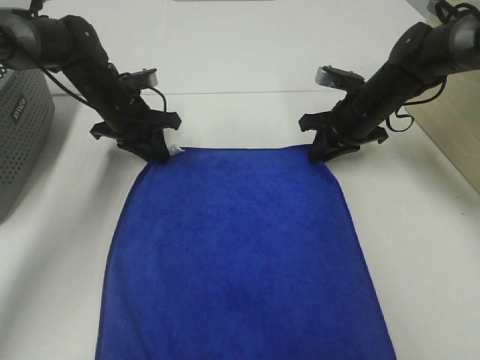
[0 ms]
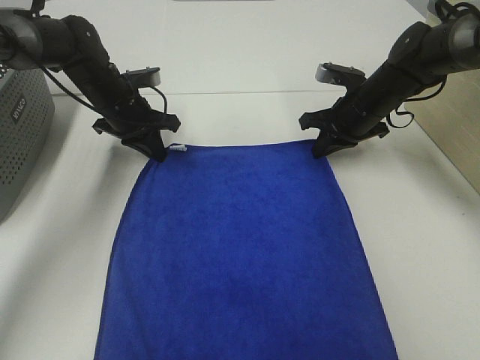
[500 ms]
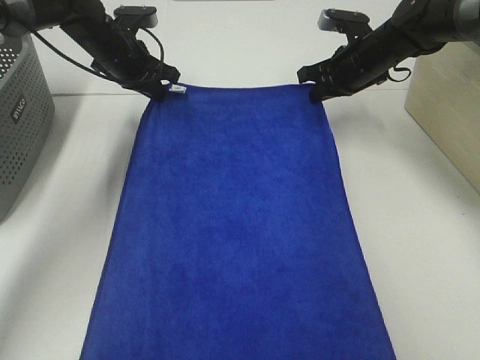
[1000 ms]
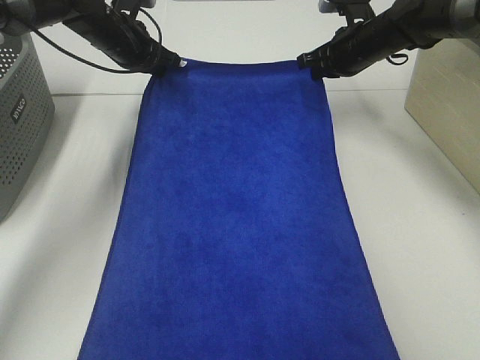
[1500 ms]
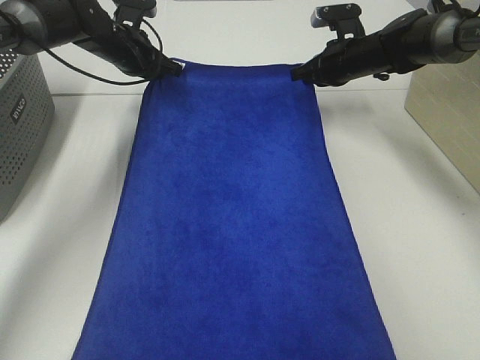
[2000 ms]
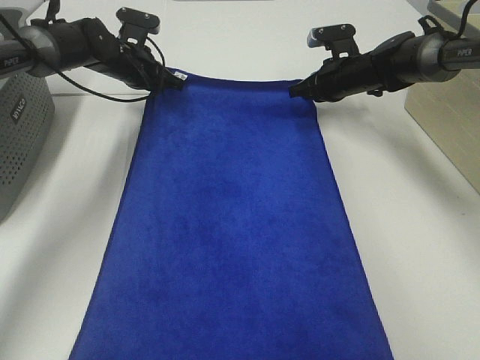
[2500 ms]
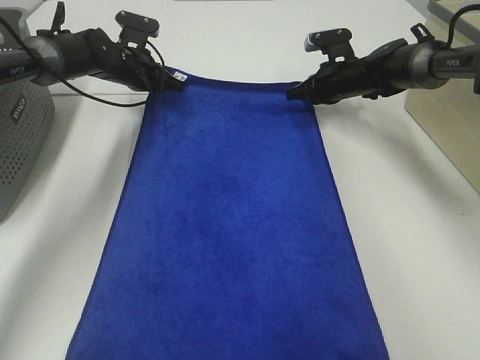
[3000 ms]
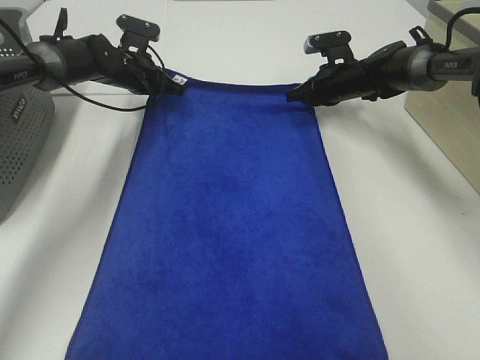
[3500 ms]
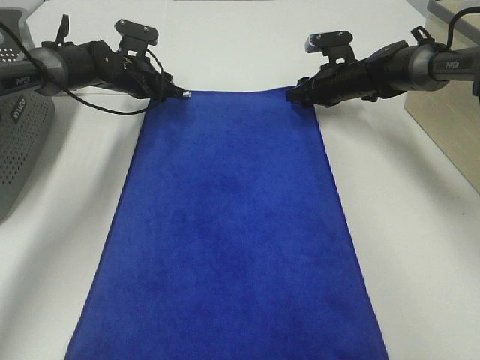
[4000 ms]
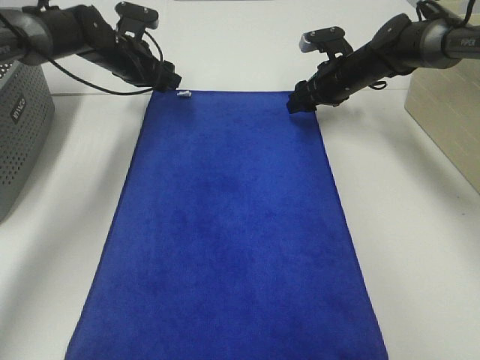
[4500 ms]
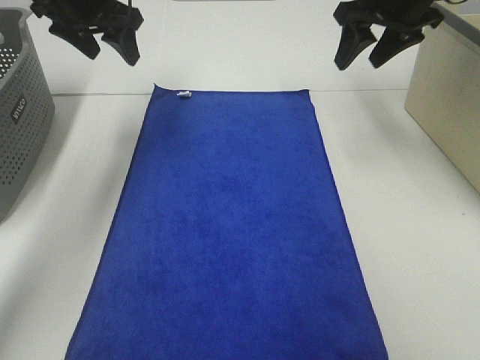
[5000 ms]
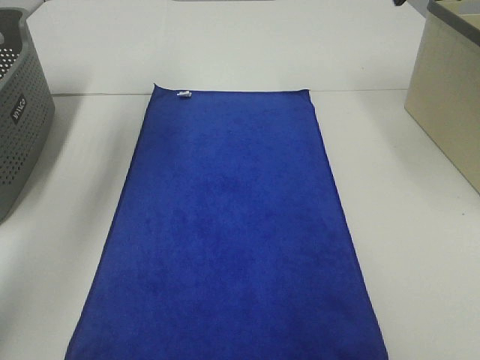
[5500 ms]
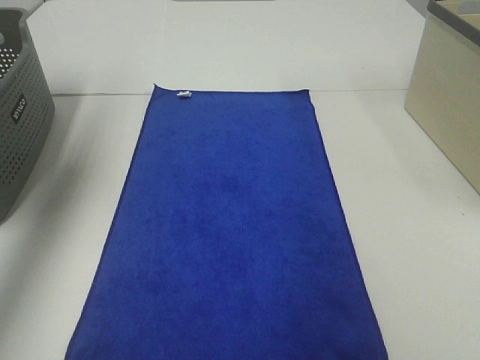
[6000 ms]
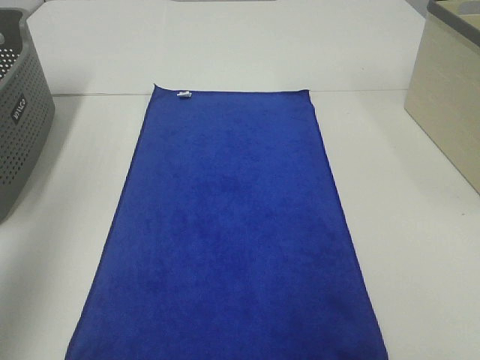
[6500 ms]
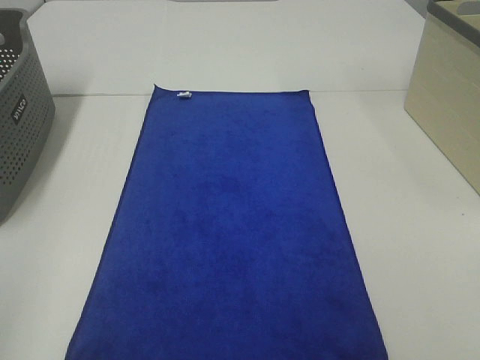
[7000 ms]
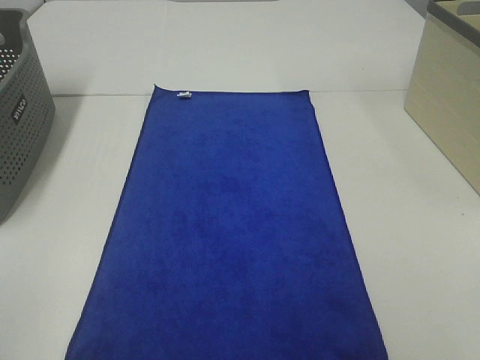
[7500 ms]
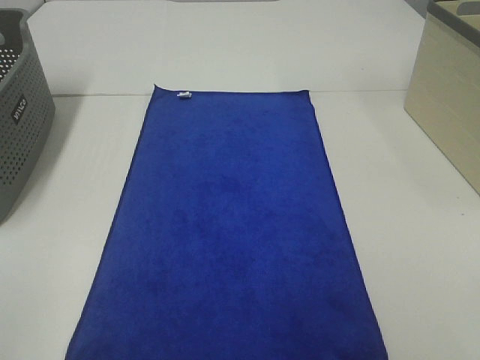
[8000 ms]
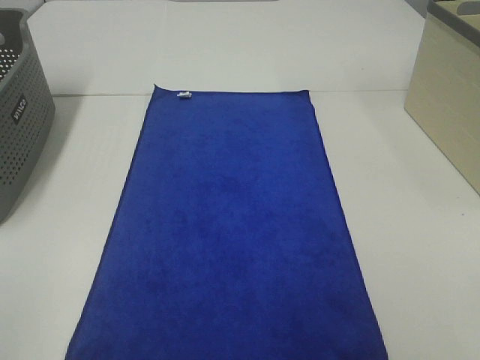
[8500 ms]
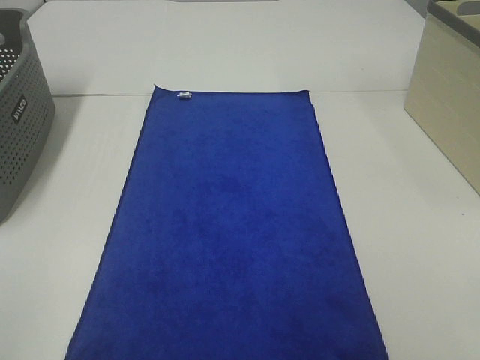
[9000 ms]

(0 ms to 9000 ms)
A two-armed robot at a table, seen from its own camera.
Task of the whole recording: Remove the towel and place it.
0 ms - 2000 ms: The right gripper goes about 10 cm forward. Meanwhile the left gripper is displaced forward and upward by about 10 cm.
2000 ms - 4500 ms: The right gripper opens its fingers. The left gripper opens its fingers.
4500 ms - 7000 ms: Both grippers move backward, approximately 50 cm.

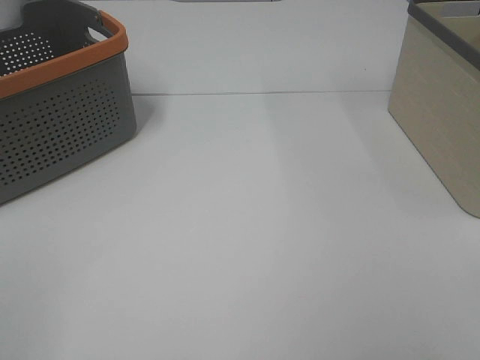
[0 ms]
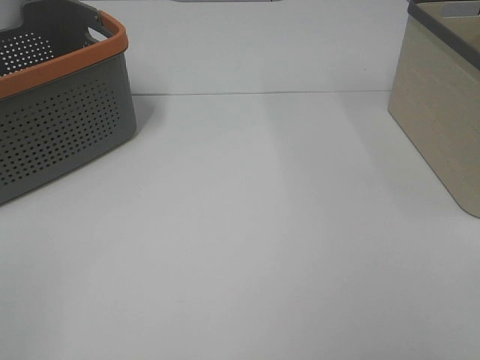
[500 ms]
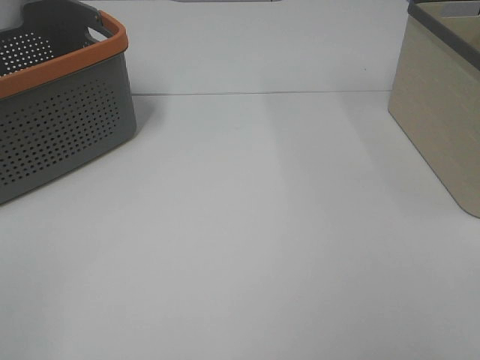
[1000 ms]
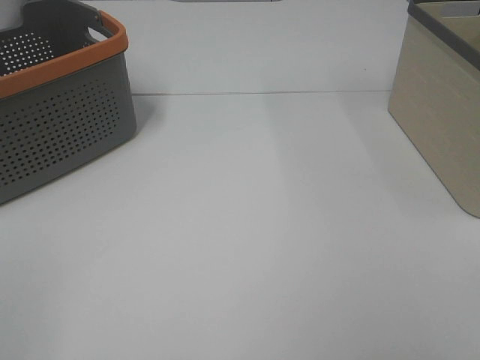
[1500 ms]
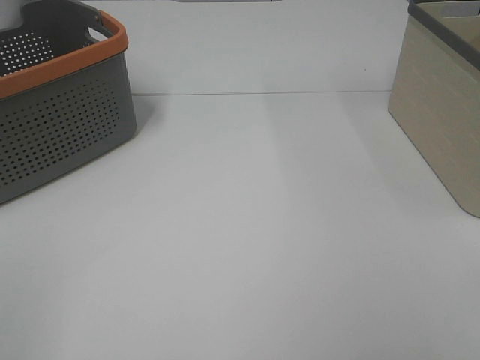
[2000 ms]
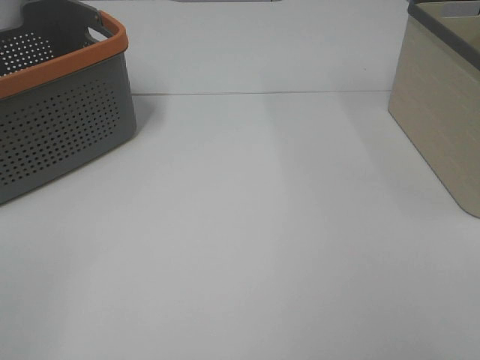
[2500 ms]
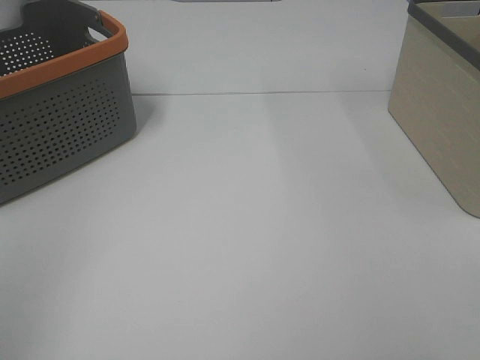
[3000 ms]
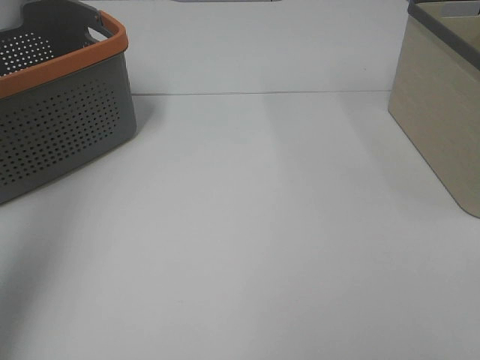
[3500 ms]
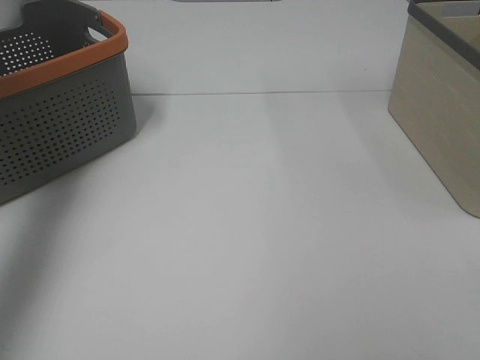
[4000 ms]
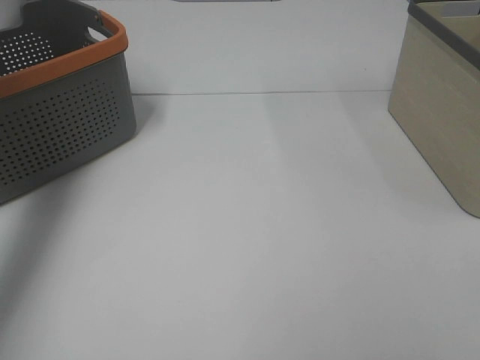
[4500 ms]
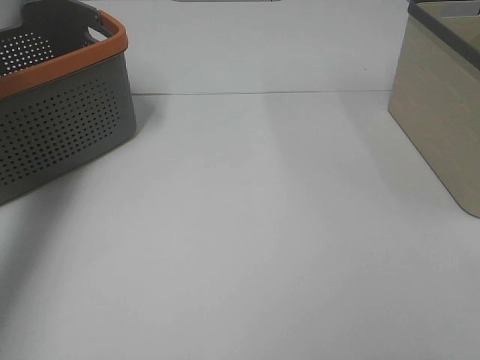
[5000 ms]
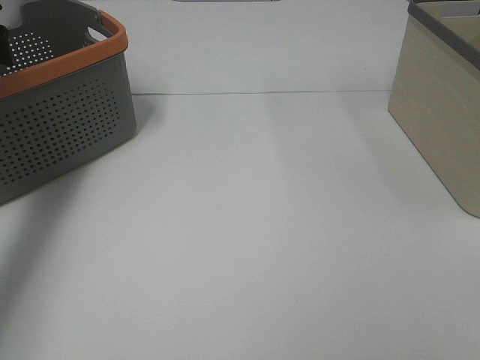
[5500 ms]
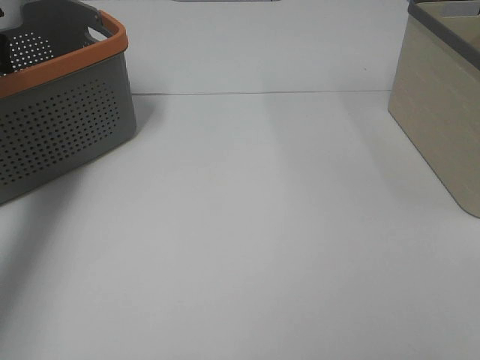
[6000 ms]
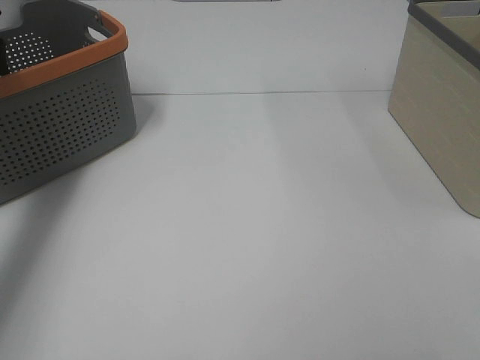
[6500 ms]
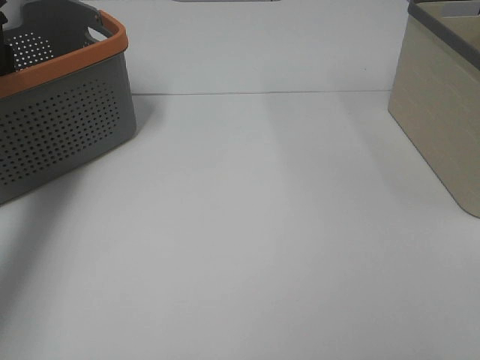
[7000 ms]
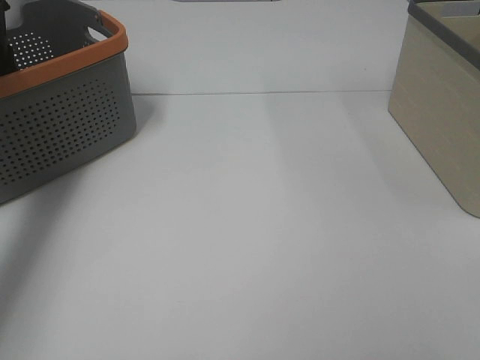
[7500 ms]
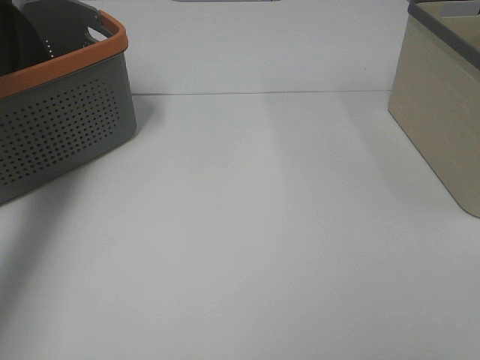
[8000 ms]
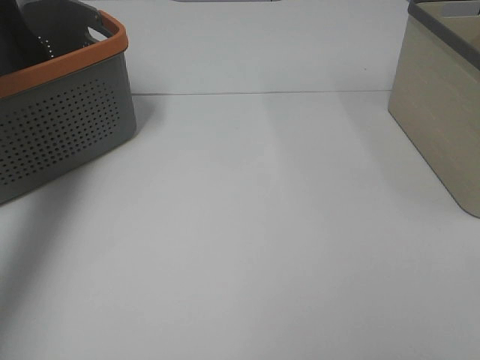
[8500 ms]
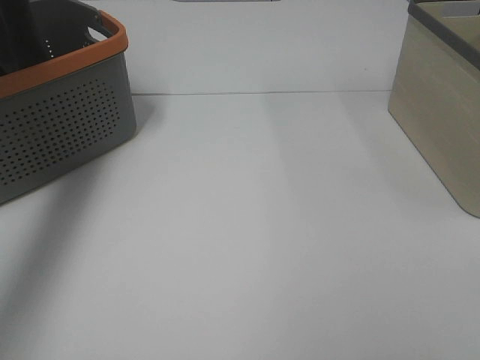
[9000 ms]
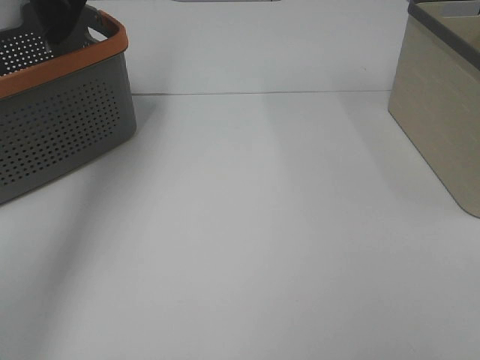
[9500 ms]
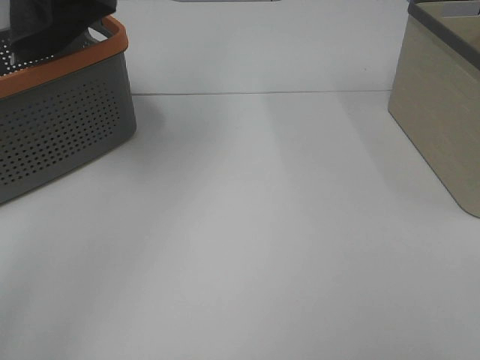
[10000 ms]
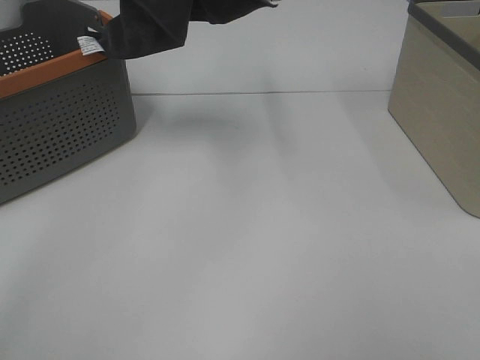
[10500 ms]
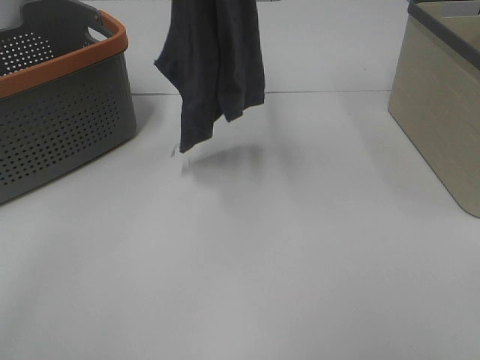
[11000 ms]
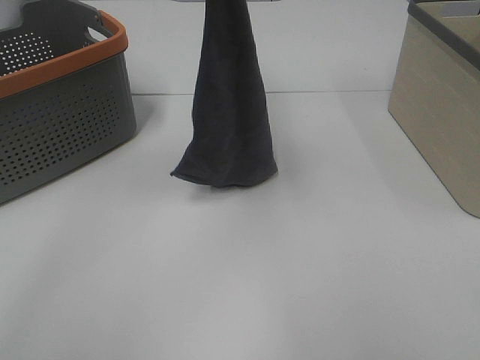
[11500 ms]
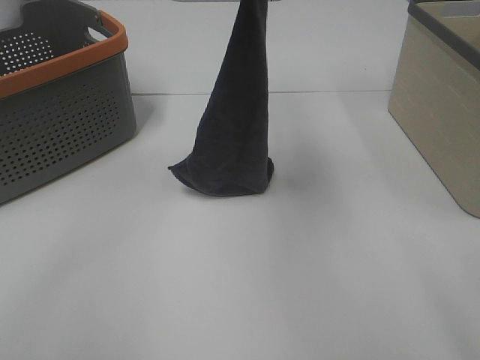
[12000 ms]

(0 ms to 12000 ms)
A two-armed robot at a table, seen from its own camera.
Task of the whole recording: Remove the towel and place it.
0 ms - 2000 ms: Both grippers stay about where they are.
2000 ms - 4000 ms: The left gripper travels forward and upward by roughly 35 cm.
6000 ms - 8000 ms: The left gripper goes approximately 5 cm upward, and closes its fingers.
8000 ms - 10000 ms: The left gripper is displaced upward and to the right by roughly 30 cm.
10000 ms - 12000 ms: The right gripper is displaced forward by some 10 cm, while the left gripper is displaced to the right and downward by about 25 cm.

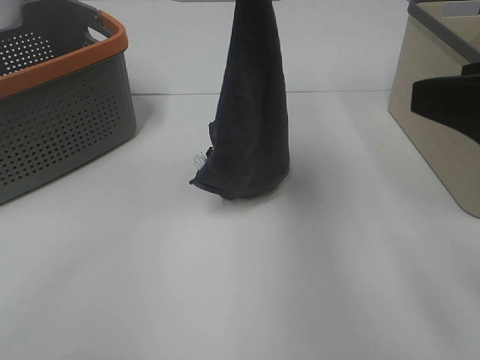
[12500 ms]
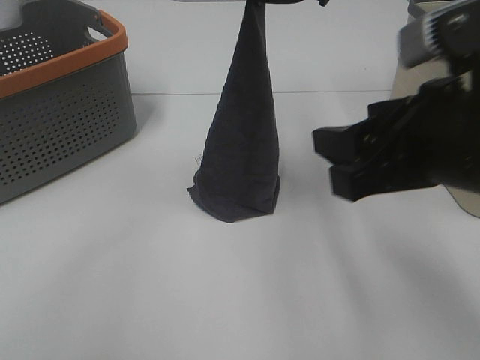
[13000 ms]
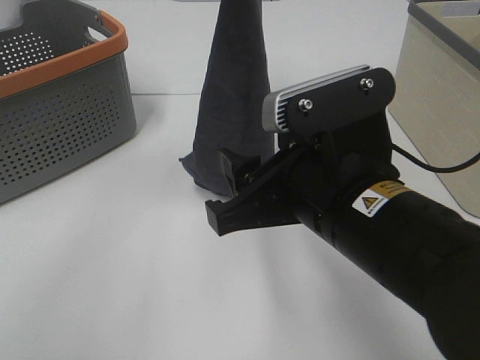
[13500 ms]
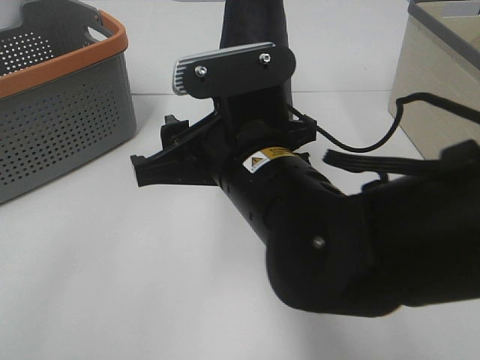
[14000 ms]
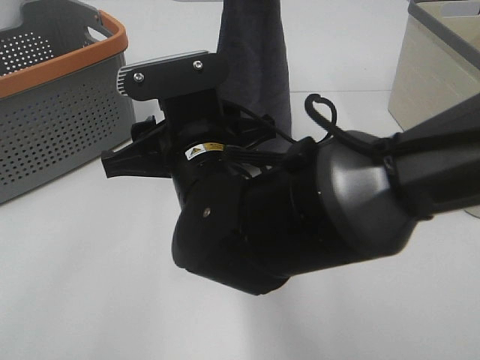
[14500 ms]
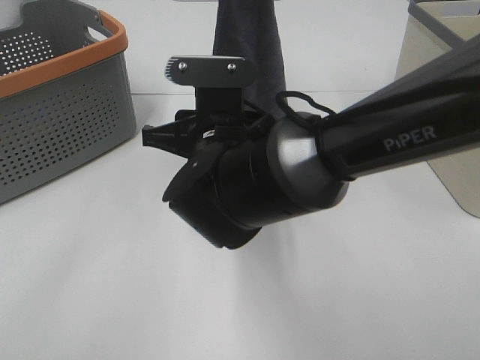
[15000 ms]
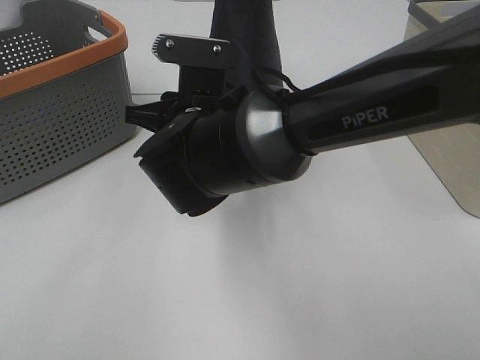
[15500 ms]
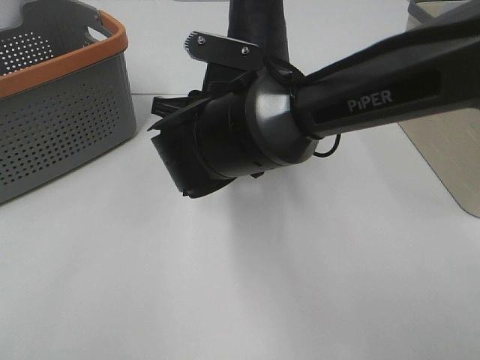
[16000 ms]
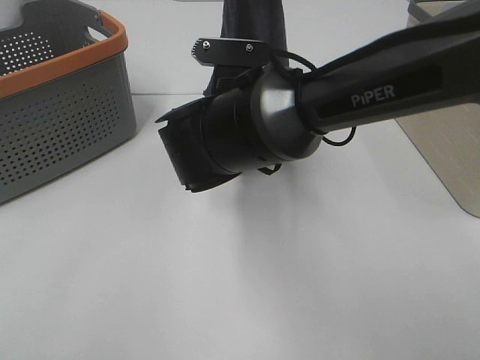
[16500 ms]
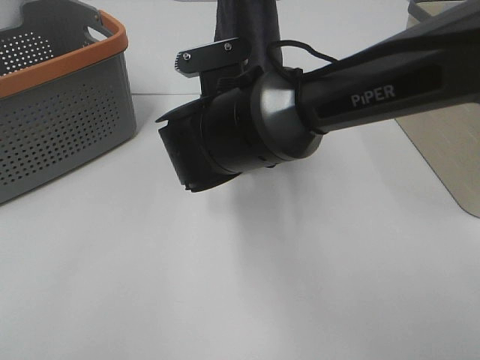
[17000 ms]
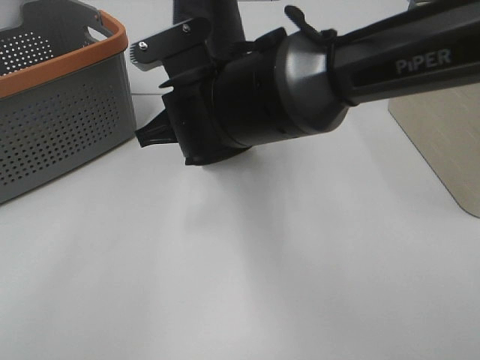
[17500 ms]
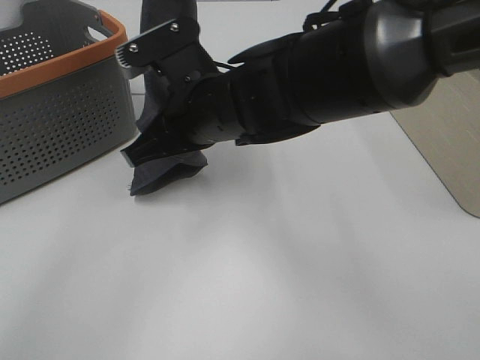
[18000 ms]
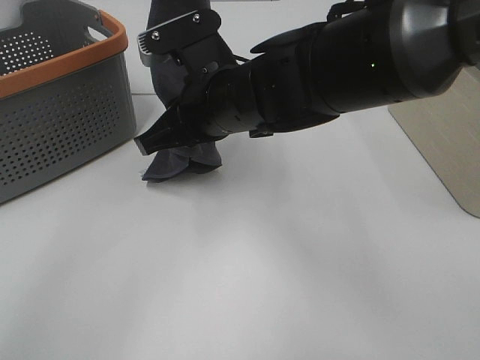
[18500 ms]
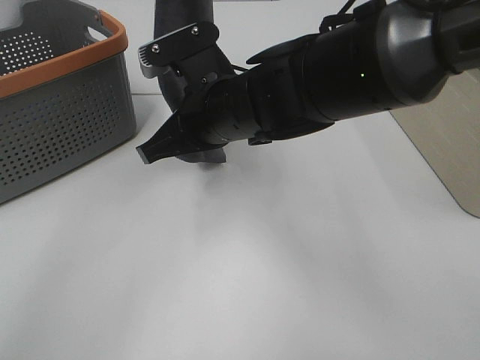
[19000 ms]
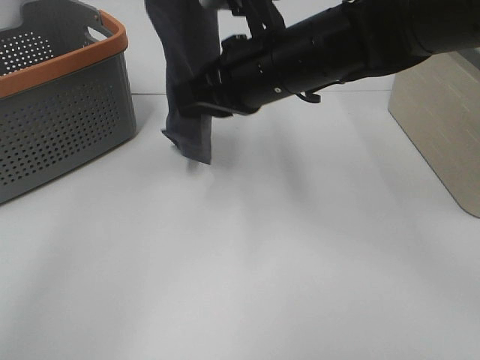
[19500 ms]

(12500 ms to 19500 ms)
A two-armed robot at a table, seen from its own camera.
Task of the whole recording: Remove the towel and place it.
Step, 12500 ms - 16500 ms: Right hand: grab a corner of the grey towel and straighten it.
Step, 17000 ms - 19000 ms: Left hand: spread the grey towel flat on the table.
Step, 17000 ms - 19000 ms: Right hand: spread the grey towel flat on the table.
12500 ms - 14500 ms: The right gripper heads to the left and downward, covering approximately 30 cm, while the left gripper is displaced forward by approximately 5 cm.
14500 ms - 16000 ms: The right gripper travels forward by approximately 10 cm.
16000 ms - 17500 ms: The right gripper closes.
17500 ms - 19500 ms: The right gripper travels to the right by about 5 cm.
